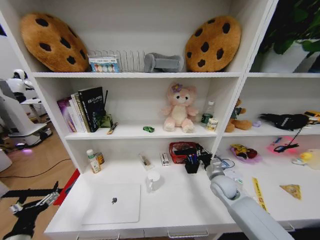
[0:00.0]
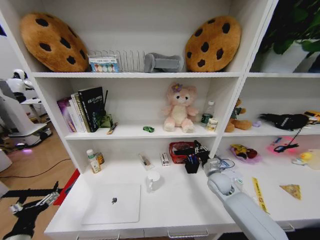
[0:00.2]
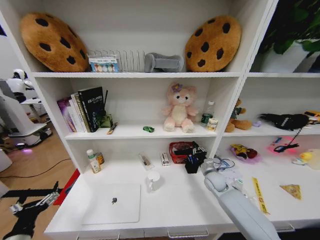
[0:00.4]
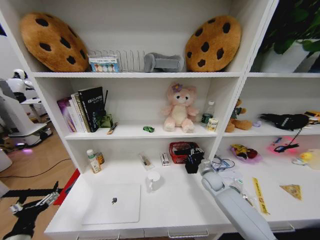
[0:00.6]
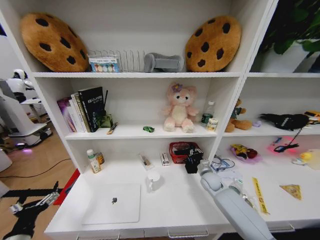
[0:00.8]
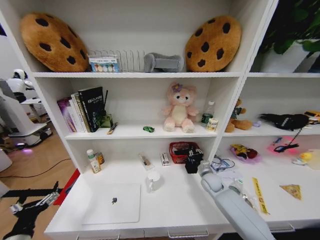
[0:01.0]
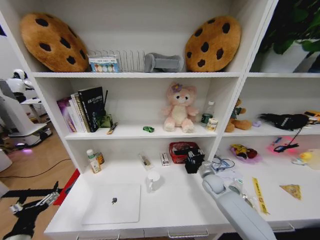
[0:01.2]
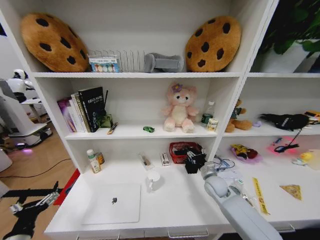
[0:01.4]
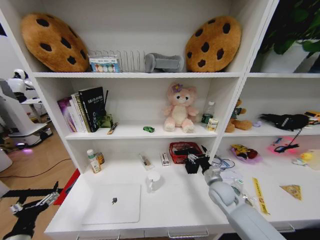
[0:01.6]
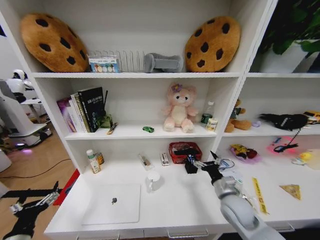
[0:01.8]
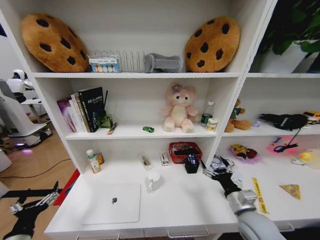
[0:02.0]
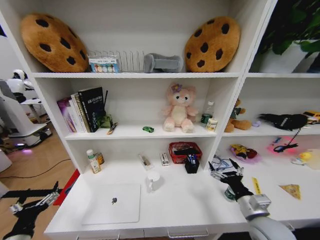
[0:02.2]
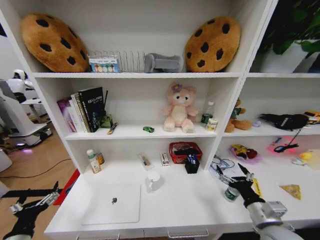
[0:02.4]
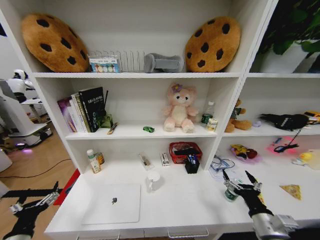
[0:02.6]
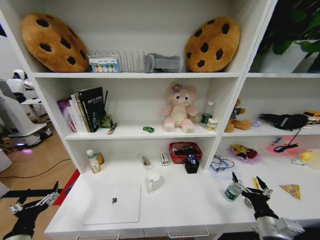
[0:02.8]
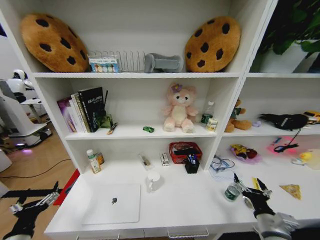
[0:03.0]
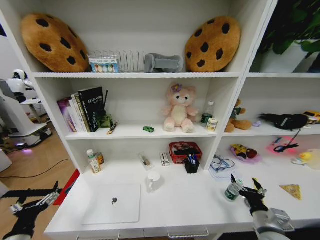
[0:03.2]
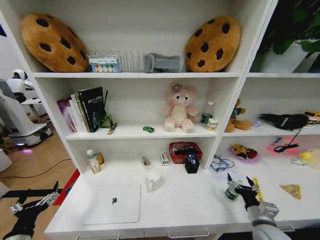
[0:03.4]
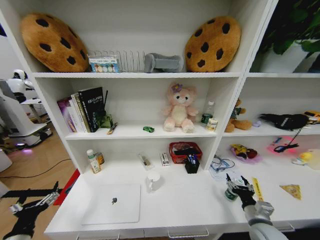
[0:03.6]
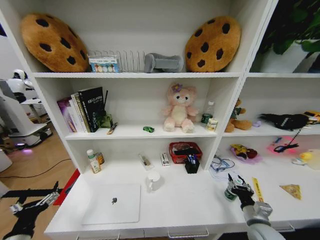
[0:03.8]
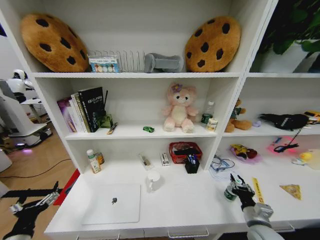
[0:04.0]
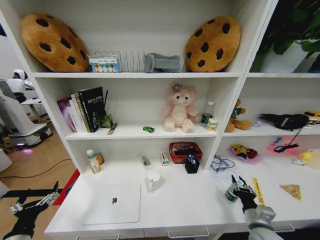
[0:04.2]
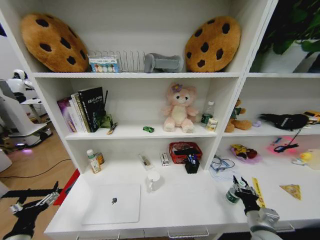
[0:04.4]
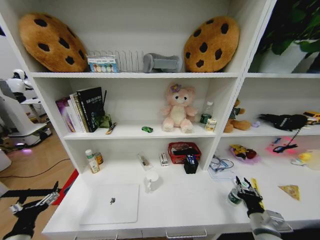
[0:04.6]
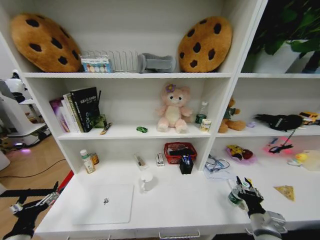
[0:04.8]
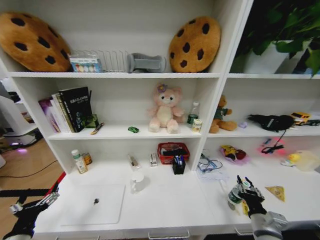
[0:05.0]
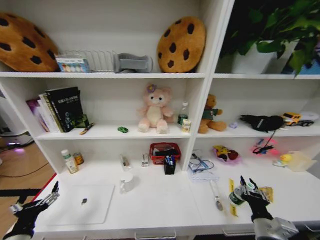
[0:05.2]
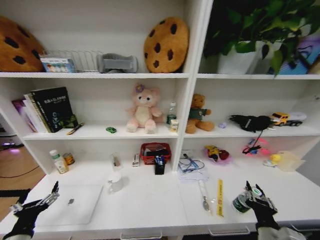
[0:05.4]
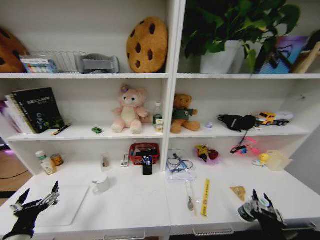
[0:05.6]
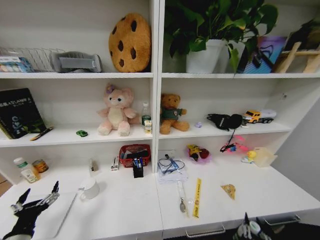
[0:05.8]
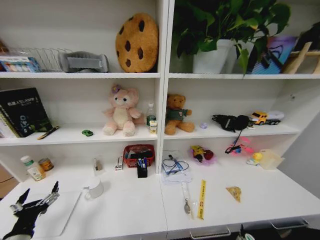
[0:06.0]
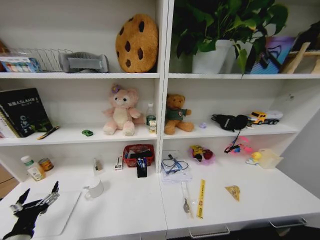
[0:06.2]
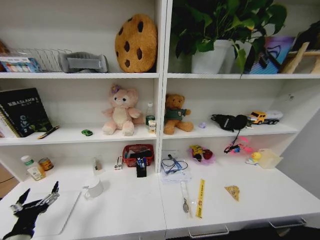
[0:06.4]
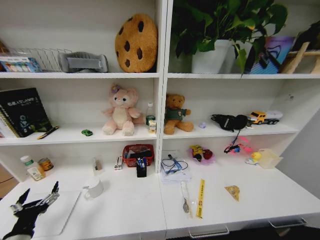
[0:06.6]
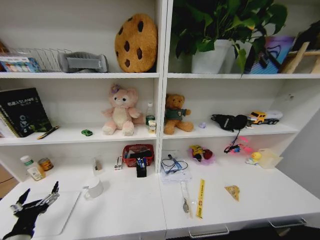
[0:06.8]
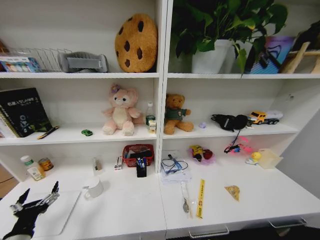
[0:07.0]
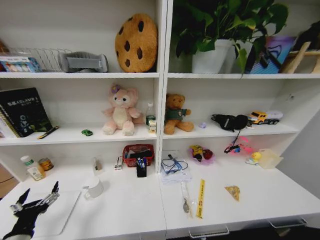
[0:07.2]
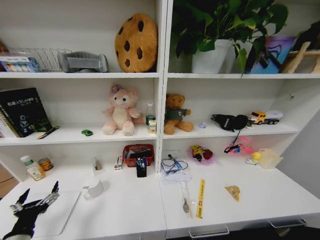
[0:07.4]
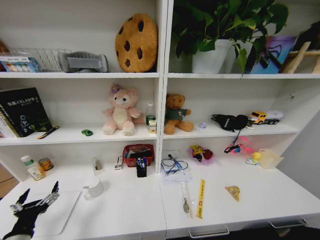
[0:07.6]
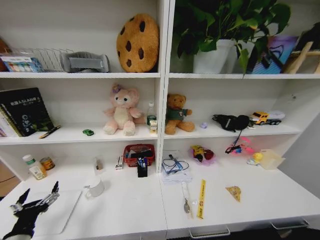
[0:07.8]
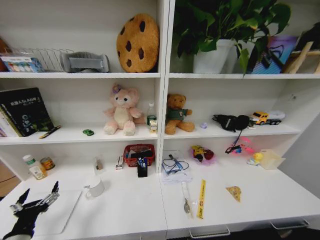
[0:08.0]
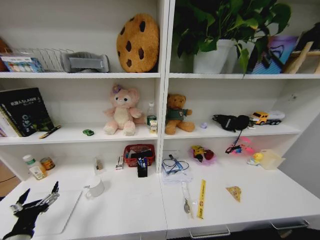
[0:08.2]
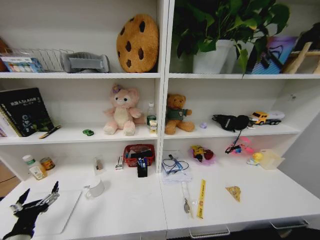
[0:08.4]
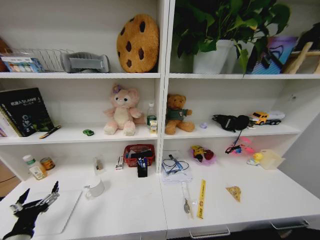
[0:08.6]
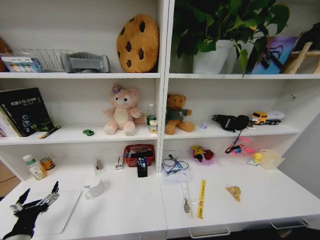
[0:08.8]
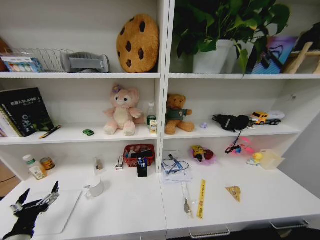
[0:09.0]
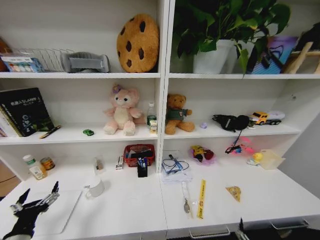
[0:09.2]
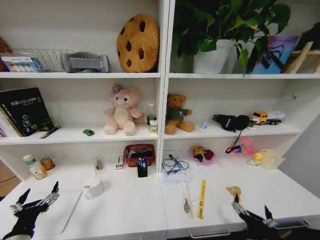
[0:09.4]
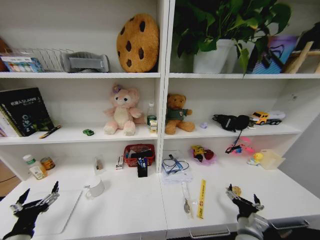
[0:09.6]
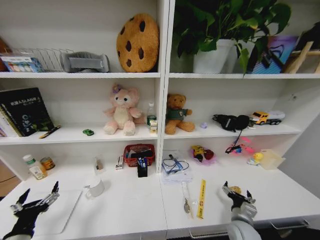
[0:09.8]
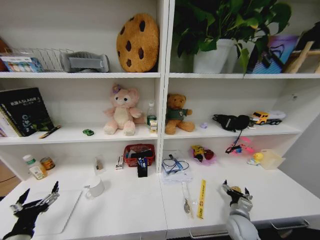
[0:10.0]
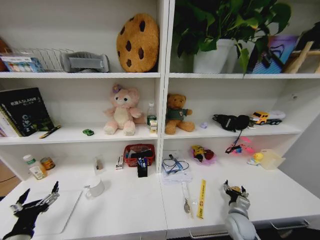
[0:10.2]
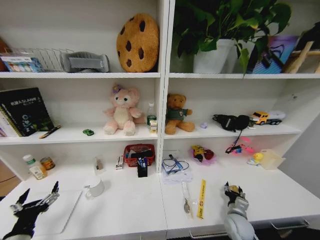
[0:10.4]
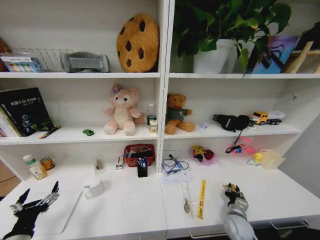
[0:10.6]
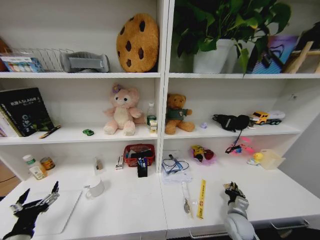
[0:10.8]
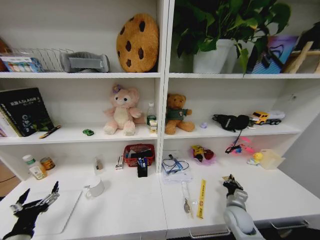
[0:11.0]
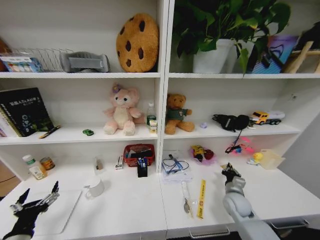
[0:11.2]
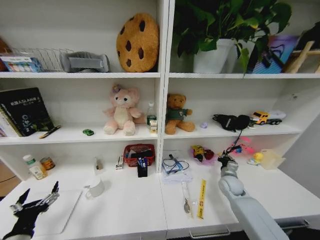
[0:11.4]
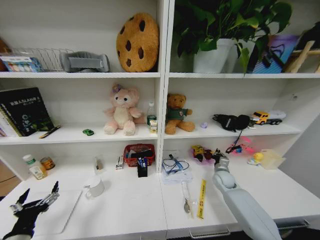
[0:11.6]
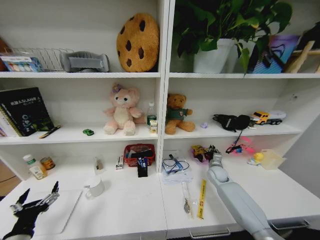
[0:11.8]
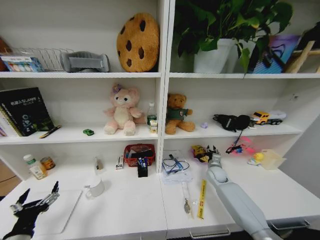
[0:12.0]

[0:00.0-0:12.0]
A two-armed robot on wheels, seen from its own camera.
Task of the whole recording: Organize the objects on the table.
0:00.0 to 0:01.6: The right gripper moves approximately 5 cm forward and comes back, and opens its fingers.
0:01.6 to 0:03.0: The right gripper shifts approximately 20 cm backward and to the right.
0:03.0 to 0:04.4: The right gripper closes its fingers.
0:04.4 to 0:06.0: The right gripper goes roughly 20 cm backward and to the left.
0:06.0 to 0:07.6: The right gripper is displaced downward by some 30 cm.
0:07.6 to 0:09.0: The right gripper goes about 30 cm upward and backward, and opens its fingers.
0:09.0 to 0:10.4: The right gripper shifts approximately 30 cm forward, and closes up.
0:10.4 to 0:12.0: The right gripper is displaced forward by some 20 cm.

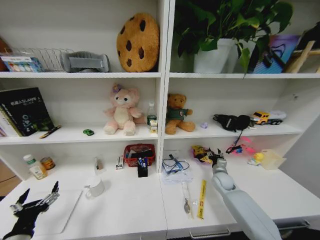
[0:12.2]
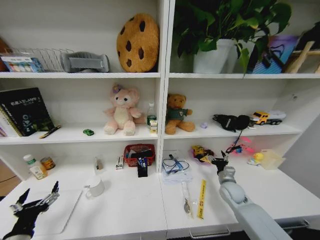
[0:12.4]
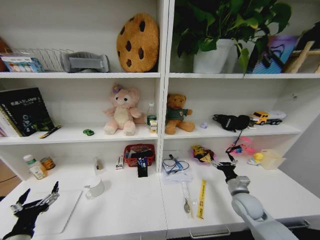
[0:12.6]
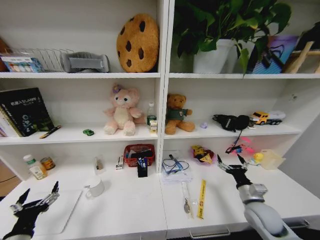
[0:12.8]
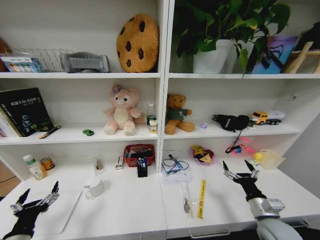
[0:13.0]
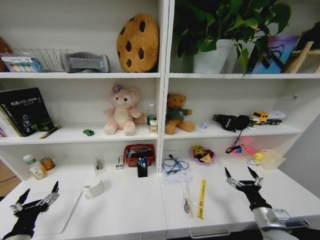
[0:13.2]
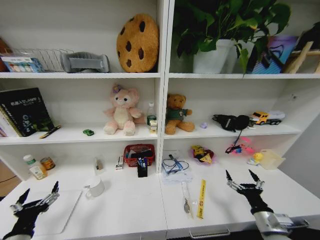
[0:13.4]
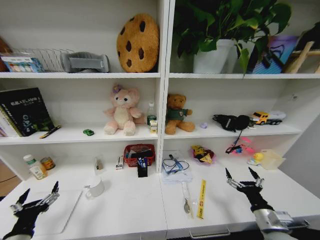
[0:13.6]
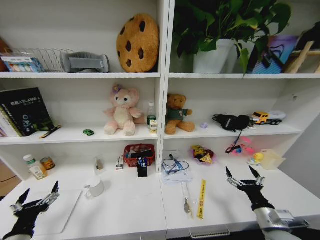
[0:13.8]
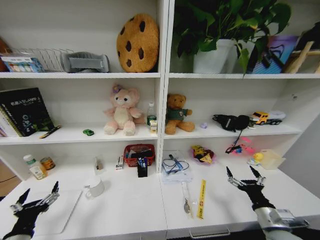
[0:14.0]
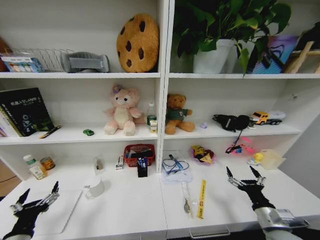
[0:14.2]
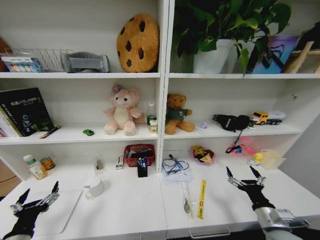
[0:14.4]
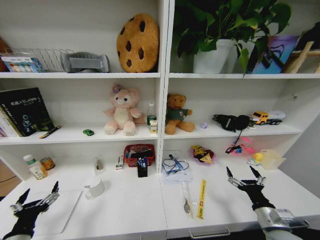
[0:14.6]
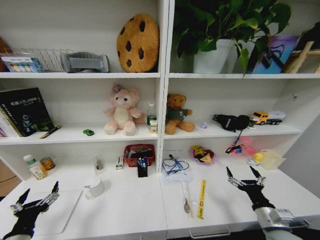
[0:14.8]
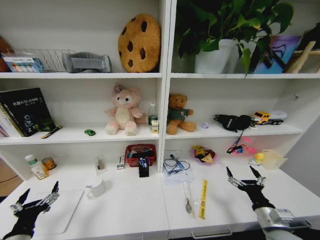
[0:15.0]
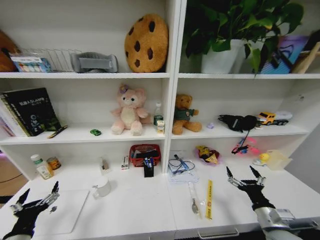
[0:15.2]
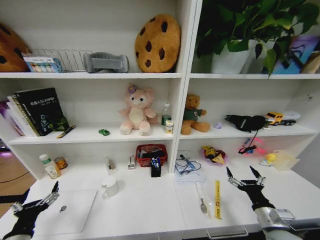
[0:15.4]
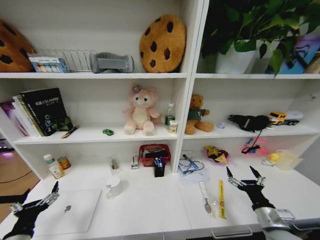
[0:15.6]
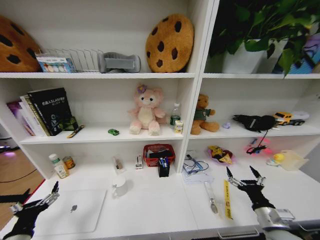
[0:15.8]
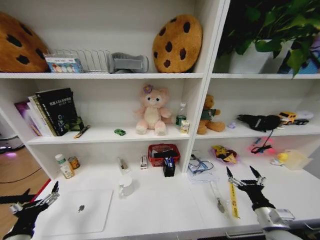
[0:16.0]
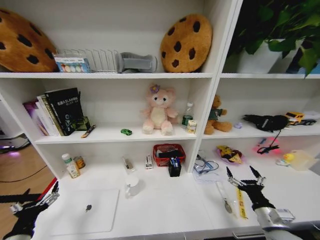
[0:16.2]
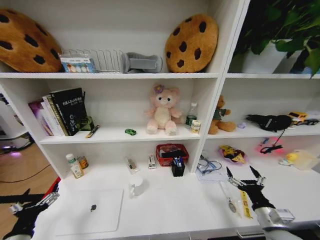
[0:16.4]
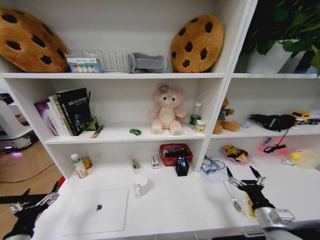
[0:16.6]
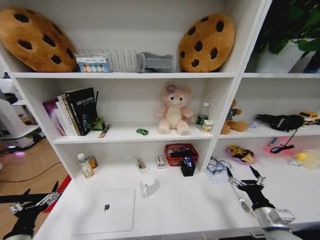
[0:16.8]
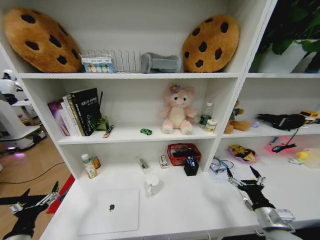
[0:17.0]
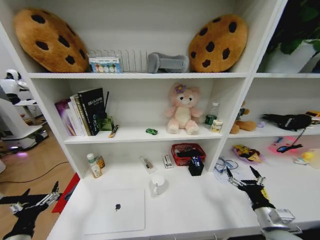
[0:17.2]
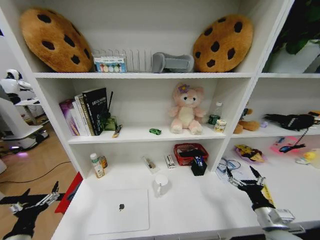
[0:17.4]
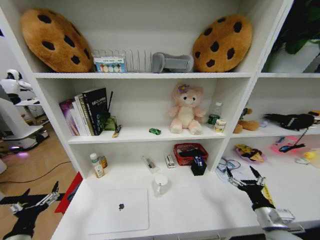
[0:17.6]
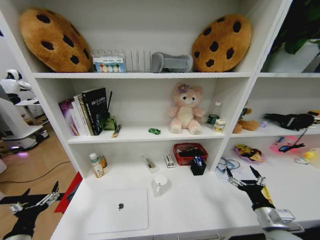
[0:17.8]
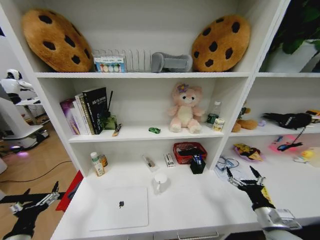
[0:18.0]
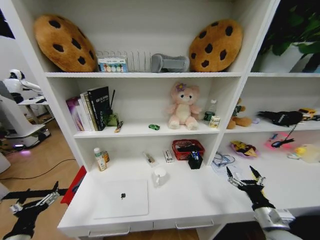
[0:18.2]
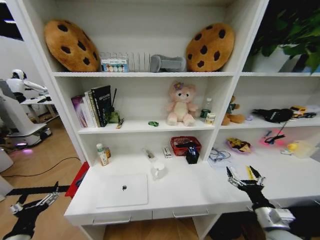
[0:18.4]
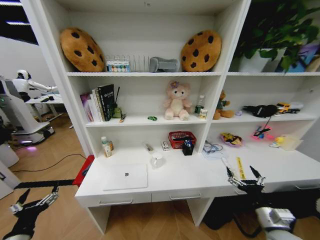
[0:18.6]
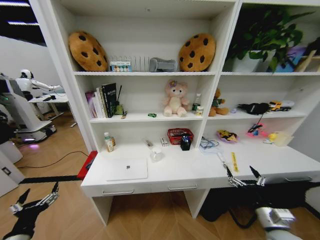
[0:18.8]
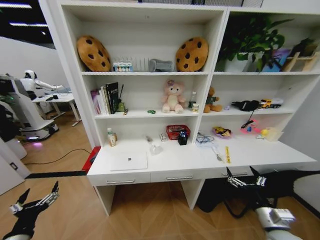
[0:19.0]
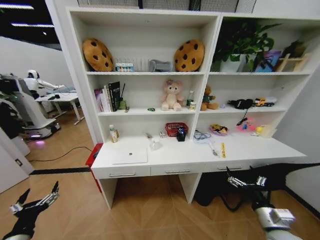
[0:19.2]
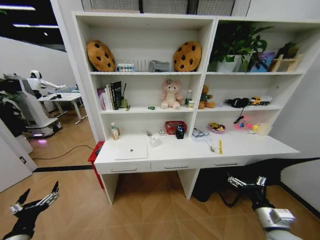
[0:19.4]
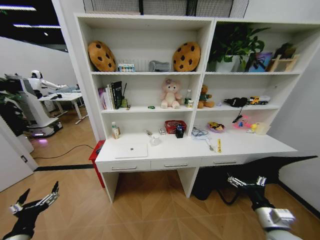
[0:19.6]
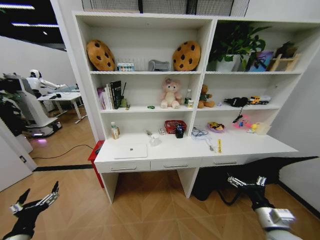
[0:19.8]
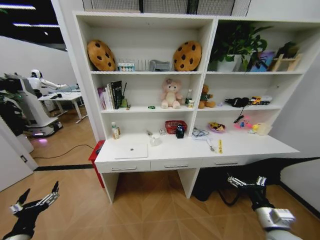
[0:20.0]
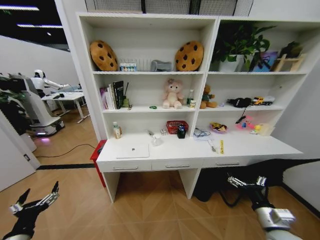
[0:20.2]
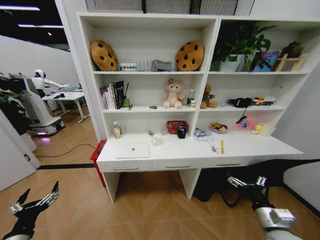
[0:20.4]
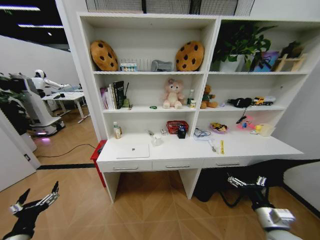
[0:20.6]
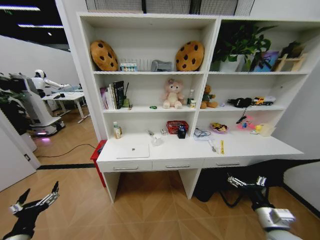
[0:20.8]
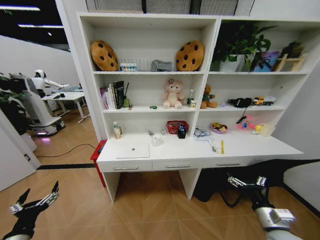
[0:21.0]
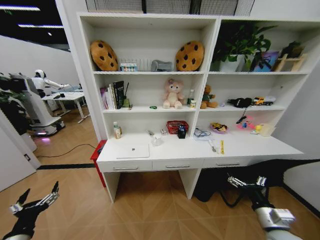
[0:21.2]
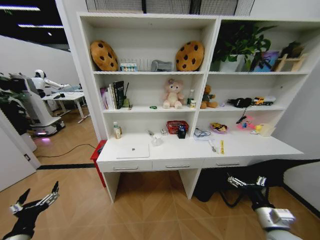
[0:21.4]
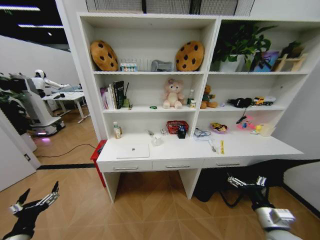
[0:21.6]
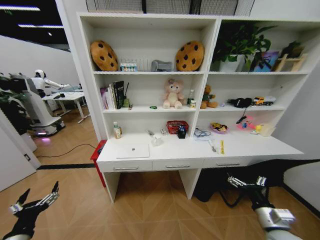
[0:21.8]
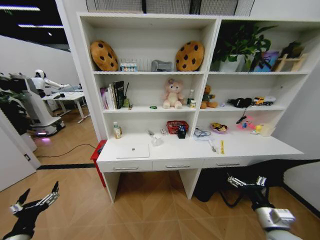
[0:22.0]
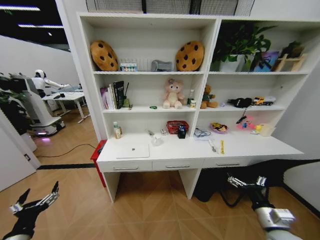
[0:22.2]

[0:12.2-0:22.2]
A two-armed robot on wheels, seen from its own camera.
Task of the whole recording: Organize the objects on the table.
0:12.2 to 0:13.6: The right gripper moves backward, roughly 25 cm, and opens its fingers.
0:13.6 to 0:15.0: Both grippers stay put.
0:19.4 to 0:22.2: Both grippers stay put.
